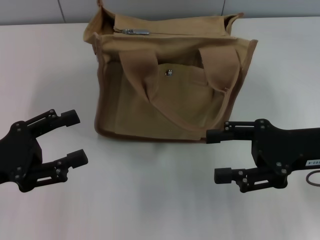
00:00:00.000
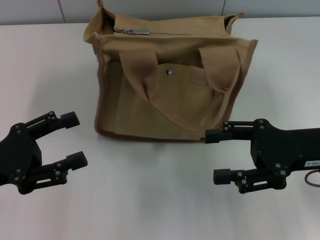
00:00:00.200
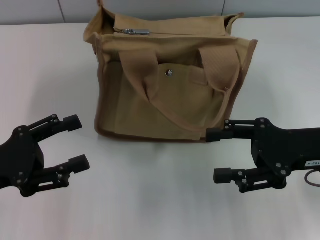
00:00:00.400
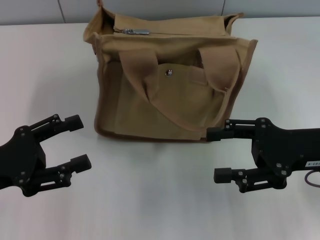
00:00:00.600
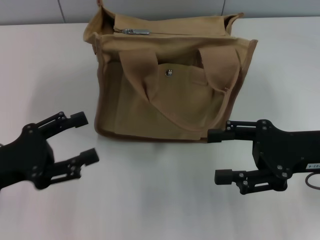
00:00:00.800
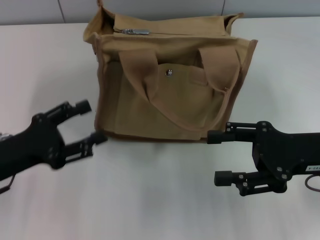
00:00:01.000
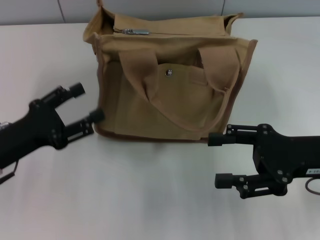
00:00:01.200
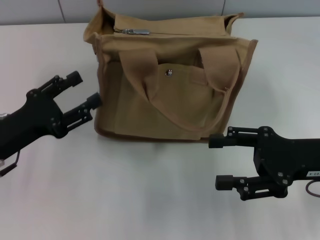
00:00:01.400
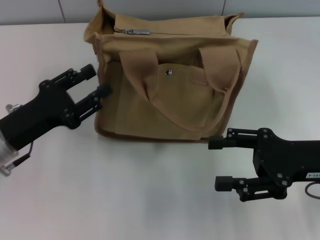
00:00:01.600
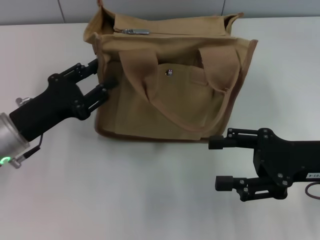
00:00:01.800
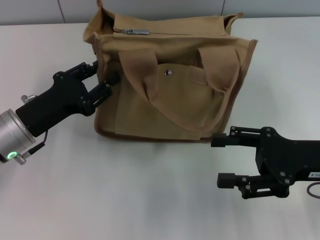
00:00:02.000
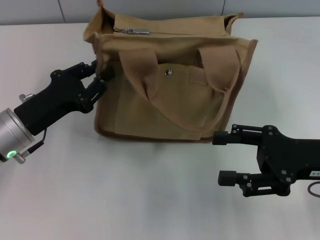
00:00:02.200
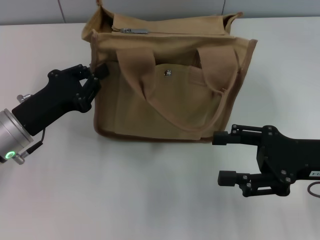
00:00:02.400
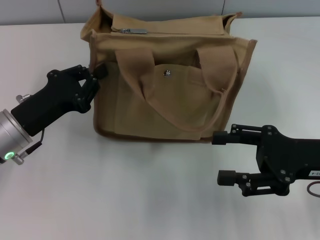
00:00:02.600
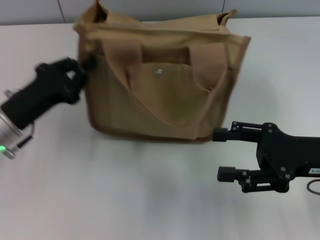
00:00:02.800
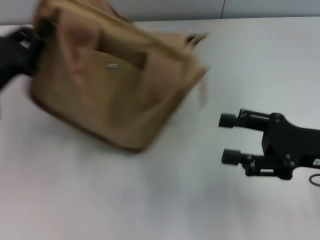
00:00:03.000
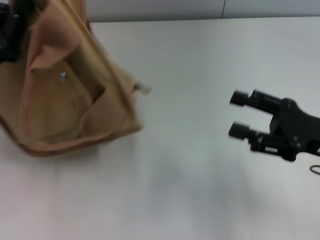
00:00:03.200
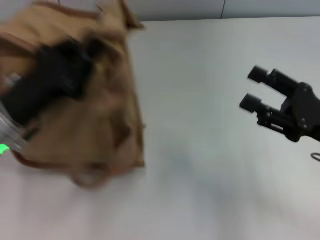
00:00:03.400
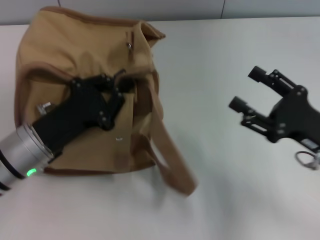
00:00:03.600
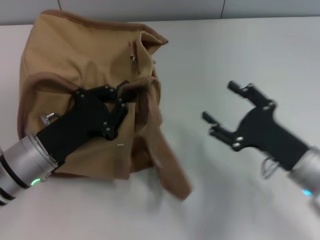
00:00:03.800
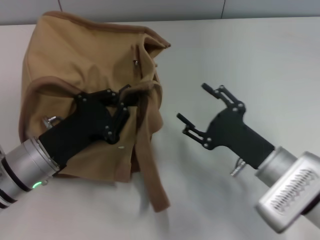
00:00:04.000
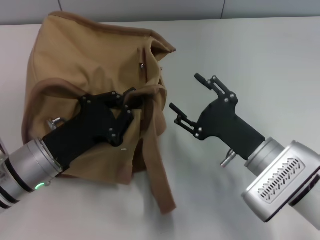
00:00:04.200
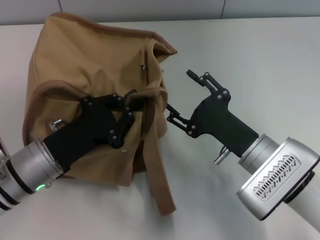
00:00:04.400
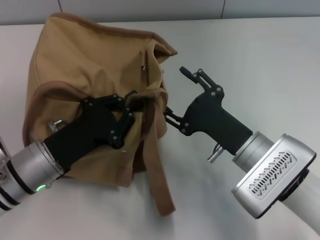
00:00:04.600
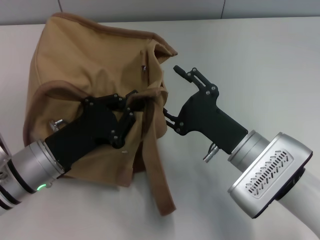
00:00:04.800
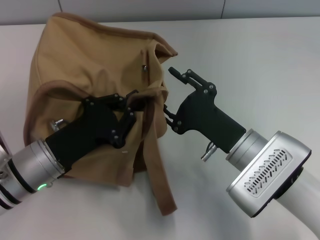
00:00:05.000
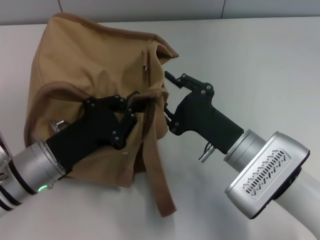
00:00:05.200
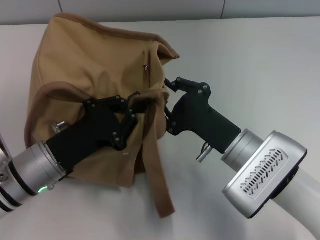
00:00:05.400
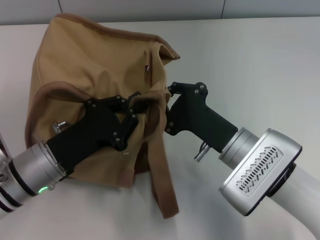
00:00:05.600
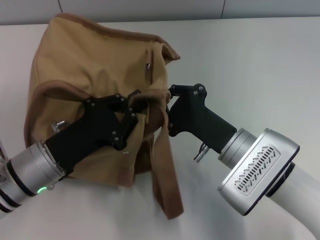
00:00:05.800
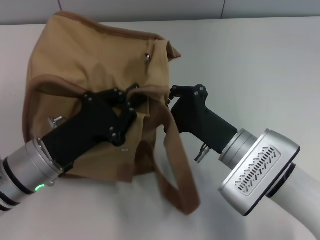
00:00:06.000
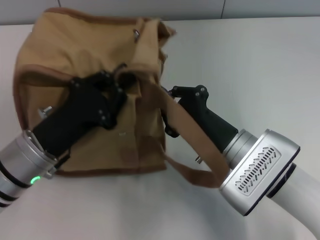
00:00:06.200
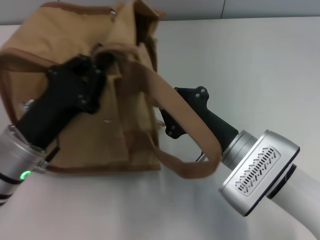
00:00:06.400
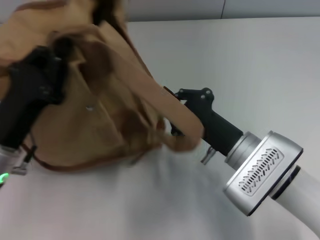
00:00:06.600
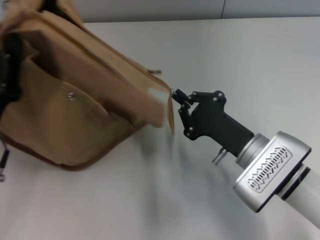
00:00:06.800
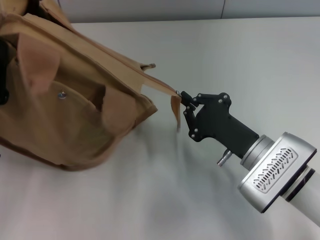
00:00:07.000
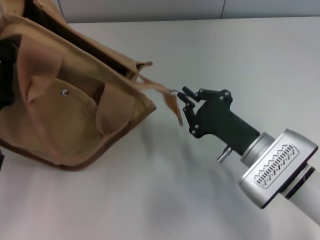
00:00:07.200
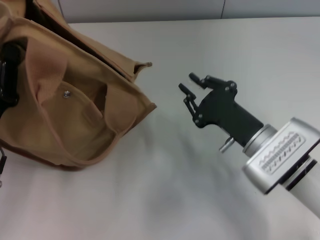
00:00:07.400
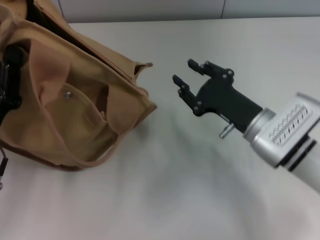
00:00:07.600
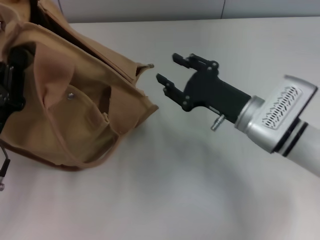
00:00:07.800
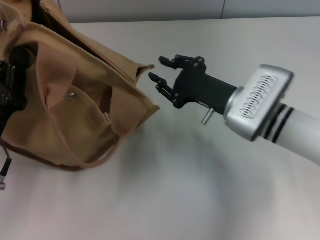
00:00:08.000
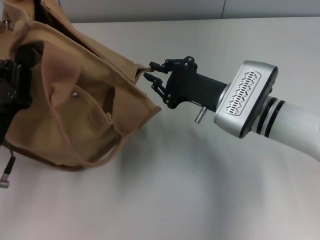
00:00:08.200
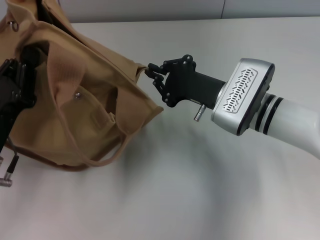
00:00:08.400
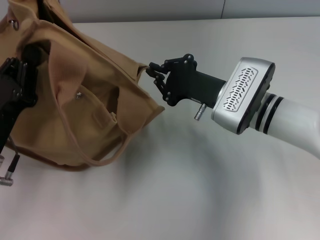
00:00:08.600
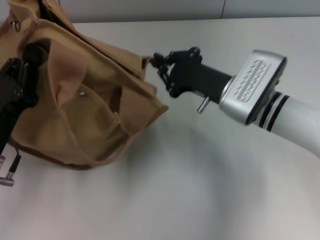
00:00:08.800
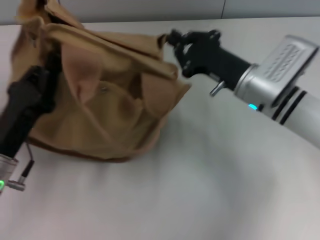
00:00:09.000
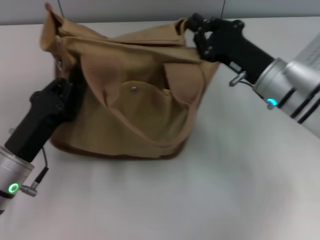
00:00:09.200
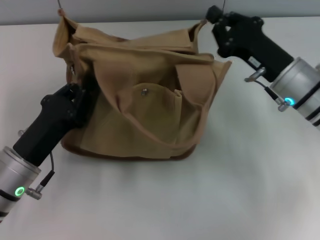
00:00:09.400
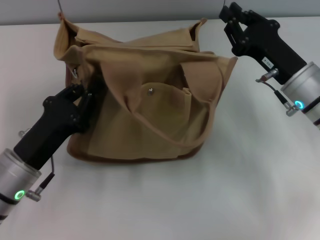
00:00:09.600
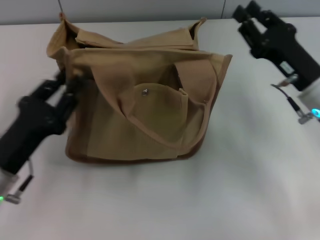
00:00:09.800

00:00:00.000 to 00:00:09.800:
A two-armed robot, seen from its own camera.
Step, 00:00:00.000 to 00:00:07.400: Pull open the zipper with your right hand.
Step, 00:00:07.600 to 00:00:09.800: Grab the bag with your left hand.
00:00:00.000 to 00:00:01.400: The left gripper moves about 5 cm.
00:00:01.400 to 00:00:02.800: The left gripper closes its fingers.
00:00:02.800 to 00:00:04.200: The right gripper travels to the left and downward by about 10 cm. The left gripper moves to the right, about 5 cm.
00:00:04.200 to 00:00:05.600: The right gripper closes.
00:00:05.600 to 00:00:07.000: The left gripper moves to the left, about 5 cm.
00:00:07.000 to 00:00:08.400: The right gripper heads forward, covering roughly 10 cm, and opens, then closes once more.
00:00:08.400 to 00:00:09.800: The right gripper goes some 10 cm to the right.

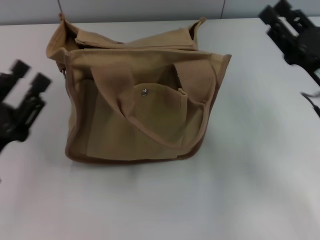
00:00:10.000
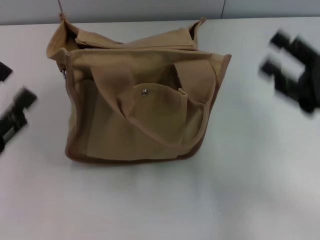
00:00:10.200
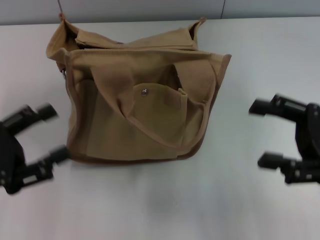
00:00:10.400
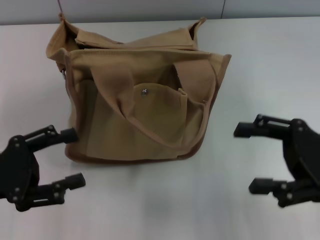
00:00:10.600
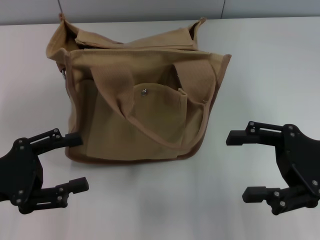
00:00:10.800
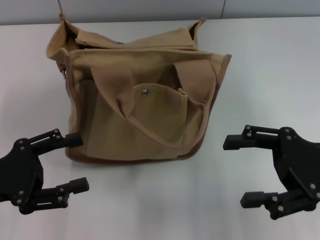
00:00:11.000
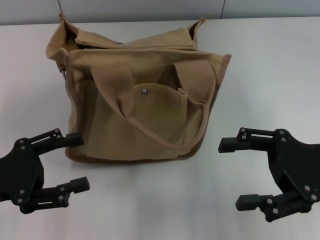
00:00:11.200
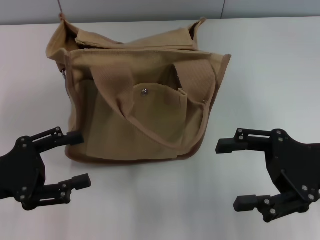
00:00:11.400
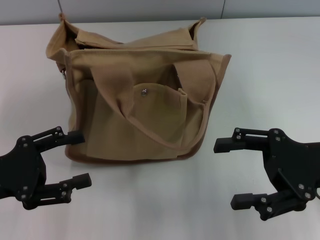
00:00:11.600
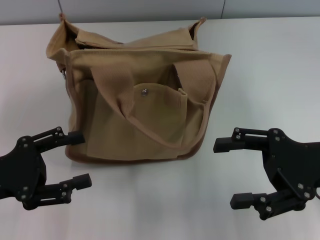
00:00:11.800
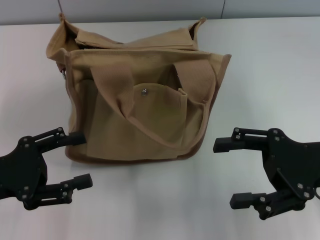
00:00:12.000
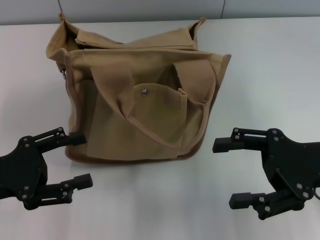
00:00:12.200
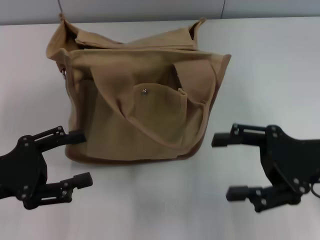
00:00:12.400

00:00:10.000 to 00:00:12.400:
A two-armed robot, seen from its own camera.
00:00:10.000 to 00:00:11.200: The left gripper opens. Meanwhile the right gripper ends up some 5 cm from where it was, and opens up.
00:00:11.200 to 00:00:12.400: Both grippers stay put.
